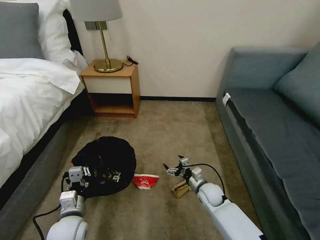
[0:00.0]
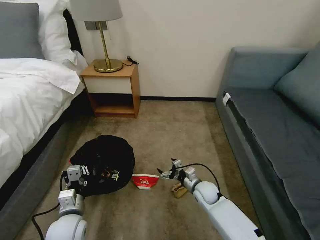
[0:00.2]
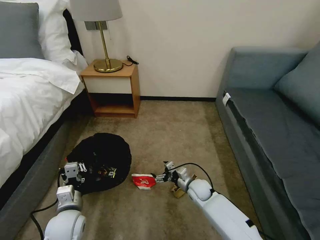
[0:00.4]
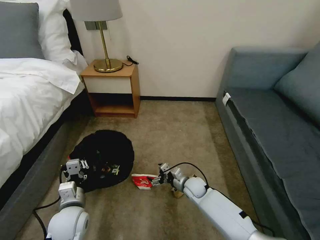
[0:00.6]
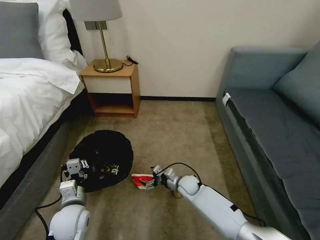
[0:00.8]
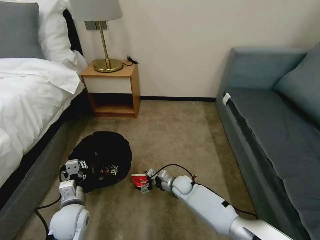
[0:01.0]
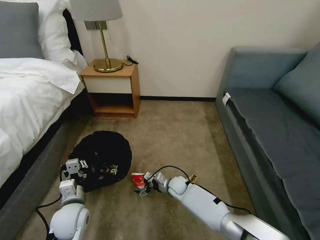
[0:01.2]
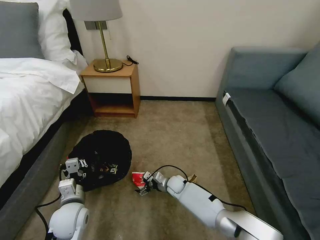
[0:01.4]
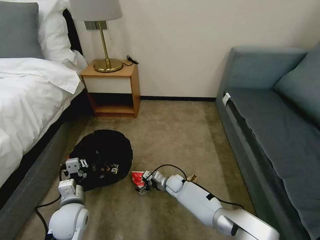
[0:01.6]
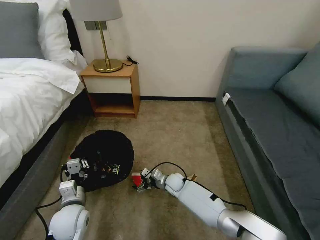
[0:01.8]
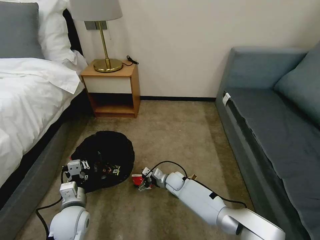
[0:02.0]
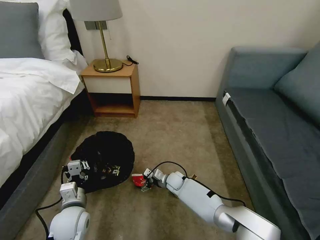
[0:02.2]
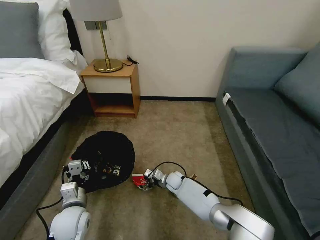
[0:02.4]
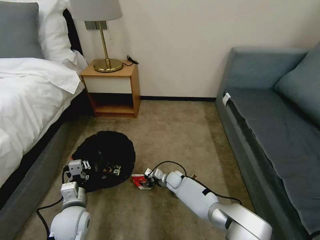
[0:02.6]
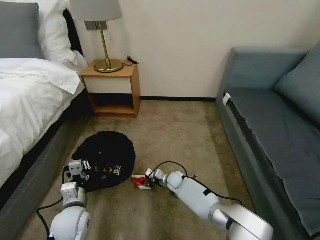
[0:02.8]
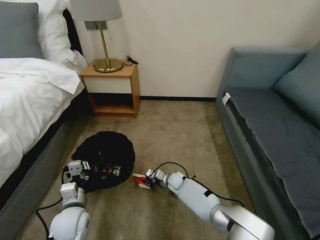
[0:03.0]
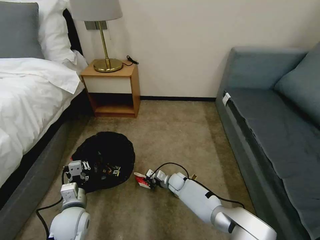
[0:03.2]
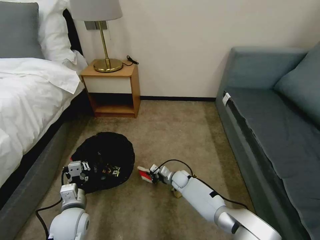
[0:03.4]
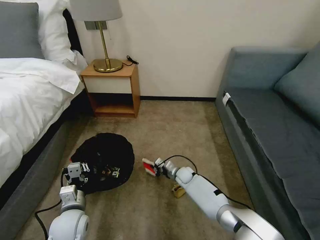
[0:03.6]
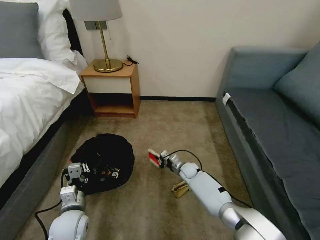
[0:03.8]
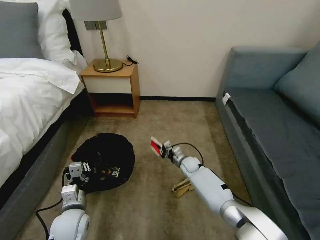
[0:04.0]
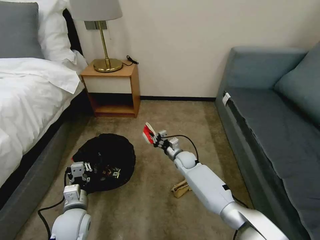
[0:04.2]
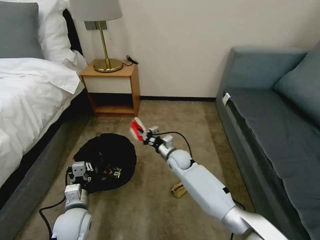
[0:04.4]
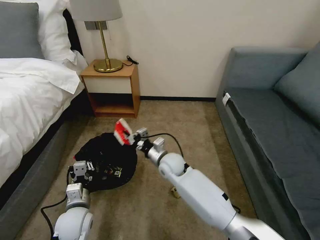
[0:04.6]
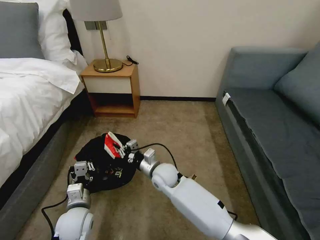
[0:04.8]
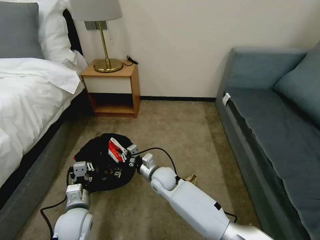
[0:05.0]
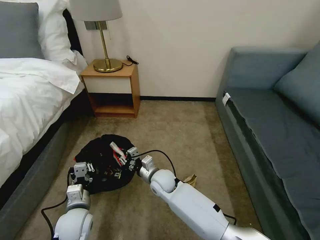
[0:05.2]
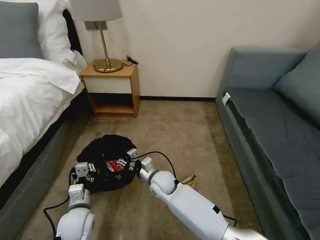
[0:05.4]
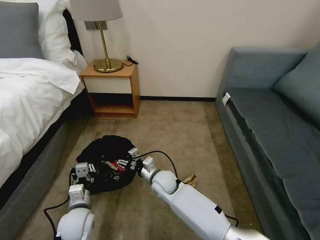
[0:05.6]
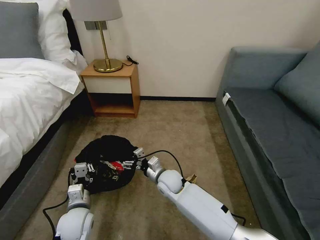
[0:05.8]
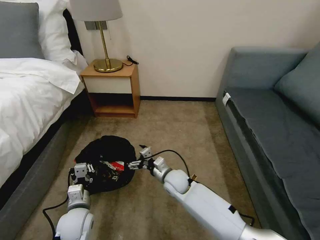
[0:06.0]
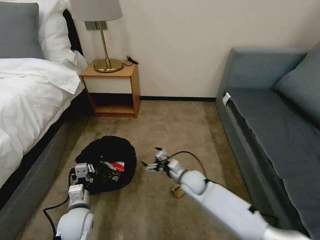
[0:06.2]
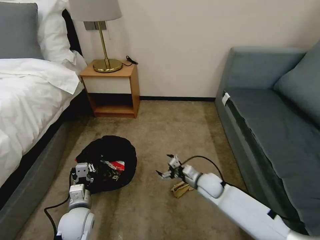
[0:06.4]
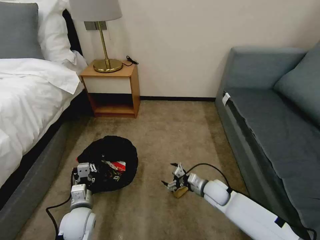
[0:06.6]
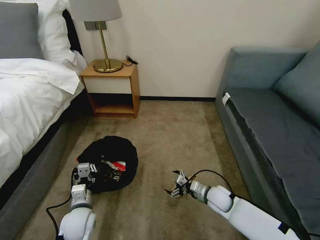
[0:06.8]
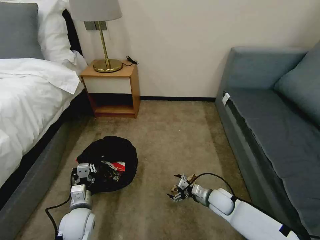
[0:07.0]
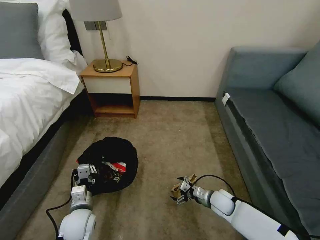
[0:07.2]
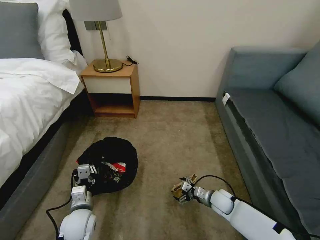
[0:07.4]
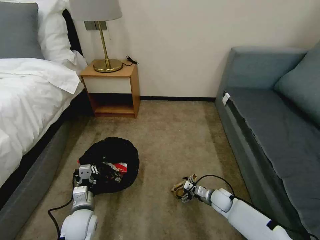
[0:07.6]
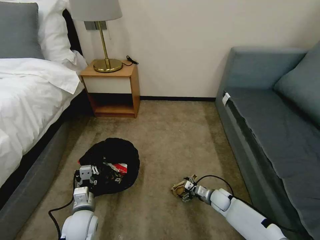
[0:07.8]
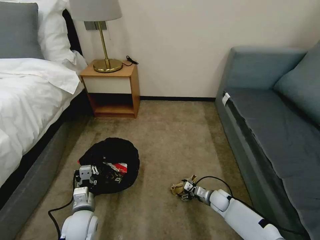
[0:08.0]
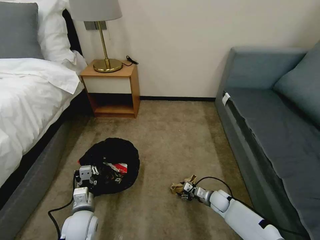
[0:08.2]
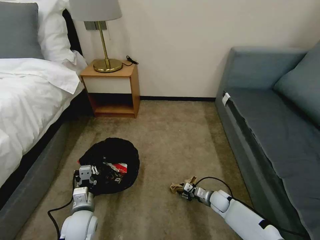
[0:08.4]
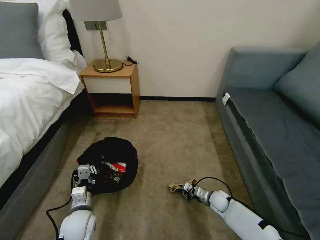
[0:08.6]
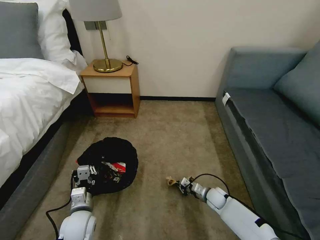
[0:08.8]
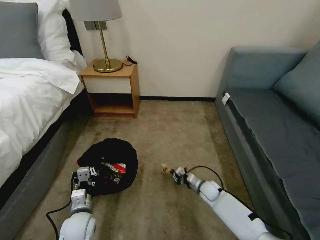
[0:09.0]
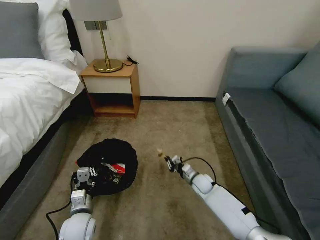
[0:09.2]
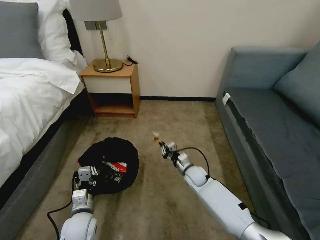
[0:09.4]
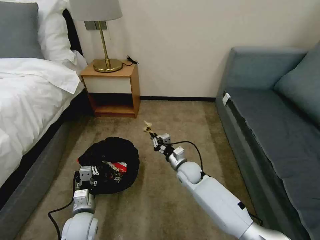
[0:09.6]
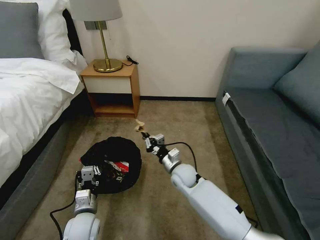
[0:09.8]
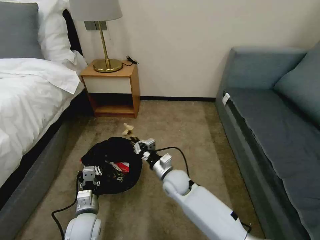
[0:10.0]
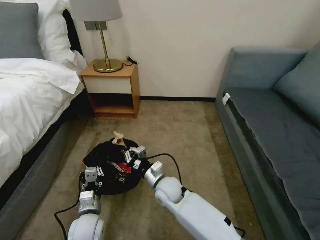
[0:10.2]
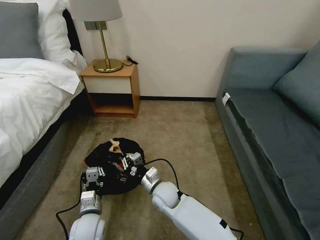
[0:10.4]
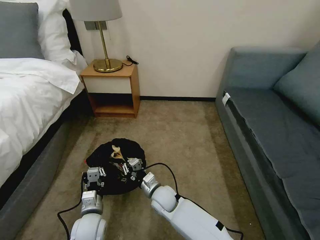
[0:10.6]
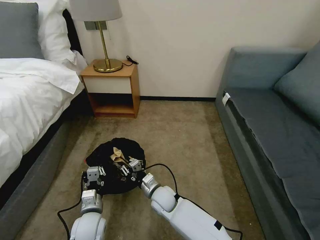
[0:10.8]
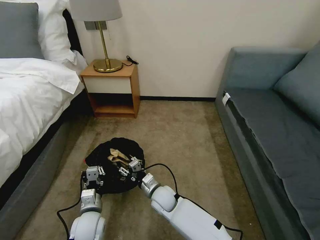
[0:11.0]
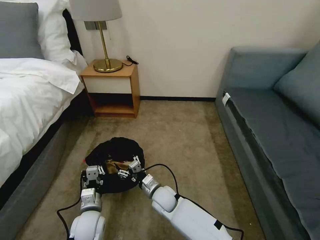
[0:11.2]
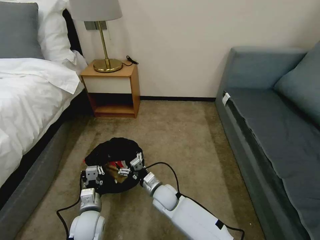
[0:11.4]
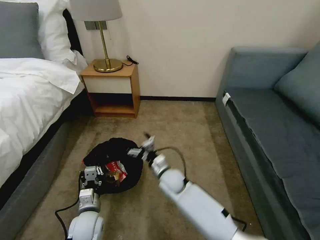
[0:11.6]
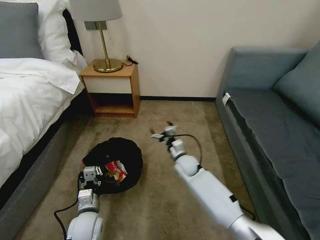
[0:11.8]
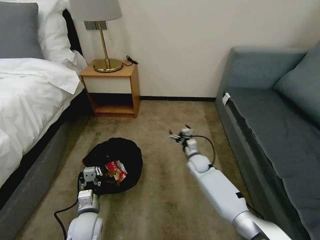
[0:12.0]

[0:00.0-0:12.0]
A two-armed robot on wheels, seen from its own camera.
Task of the whole recording: Pick up the trash bin, then pick up the garbage on the floor and place it into the trash bin.
0:00.0 to 0:01.6: The right gripper is displaced to the left, forward and downward by about 15 cm.
0:01.6 to 0:03.0: The right gripper closes up.
0:03.0 to 0:04.4: The right gripper heads upward, covering some 15 cm.
0:04.4 to 0:06.0: The right gripper is displaced backward by some 10 cm, and opens up.
0:06.0 to 0:07.6: The right gripper moves to the right and downward, some 25 cm.
0:07.6 to 0:09.0: The right gripper changes place by some 5 cm, and closes its fingers.
0:09.0 to 0:10.4: The right gripper heads to the left and upward, covering about 25 cm.
0:10.4 to 0:12.0: The right gripper is displaced to the right and forward by about 20 cm, and opens.

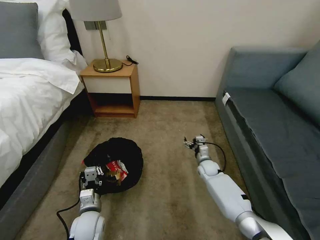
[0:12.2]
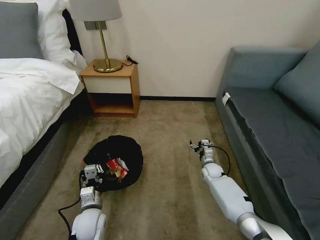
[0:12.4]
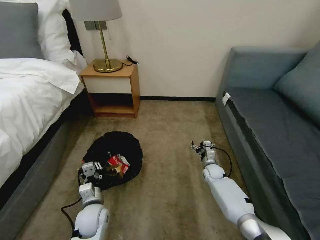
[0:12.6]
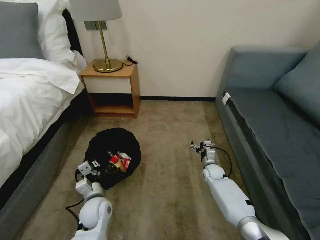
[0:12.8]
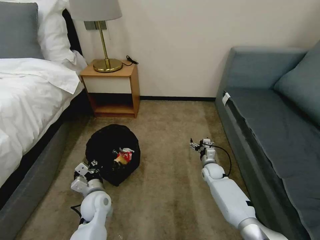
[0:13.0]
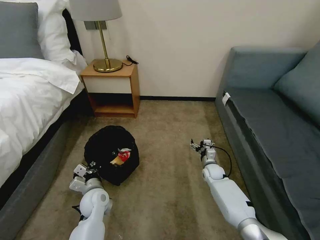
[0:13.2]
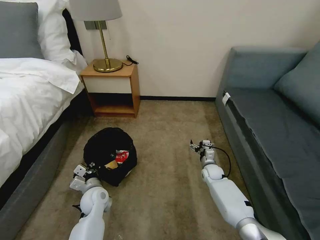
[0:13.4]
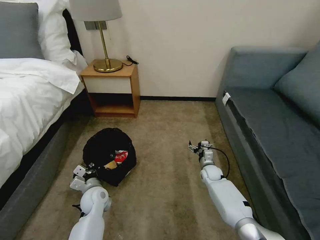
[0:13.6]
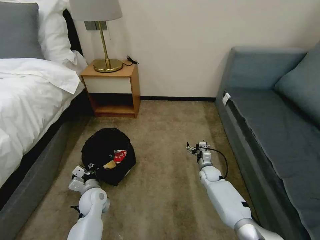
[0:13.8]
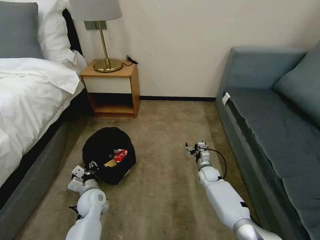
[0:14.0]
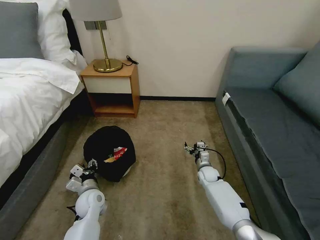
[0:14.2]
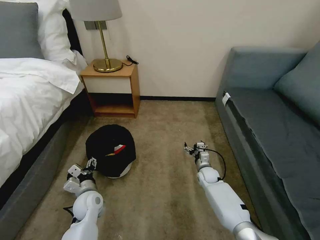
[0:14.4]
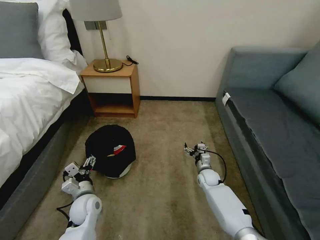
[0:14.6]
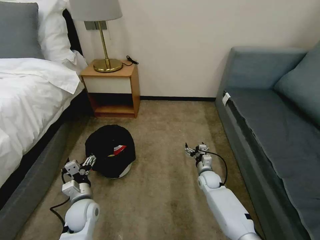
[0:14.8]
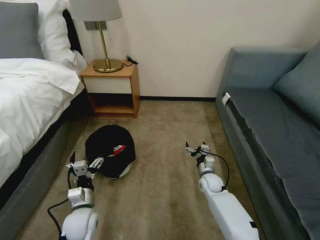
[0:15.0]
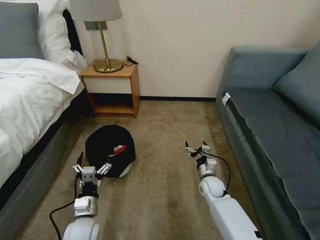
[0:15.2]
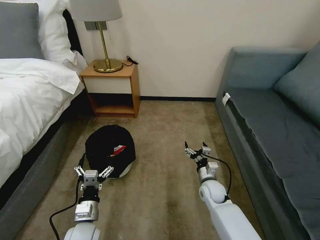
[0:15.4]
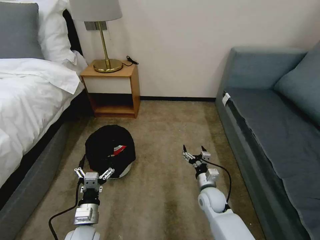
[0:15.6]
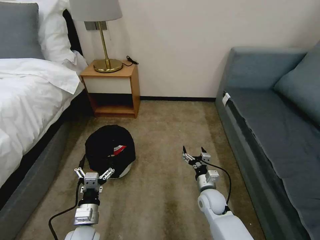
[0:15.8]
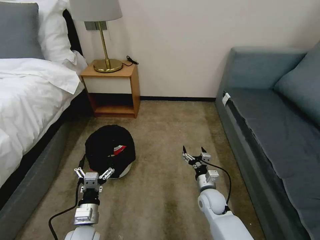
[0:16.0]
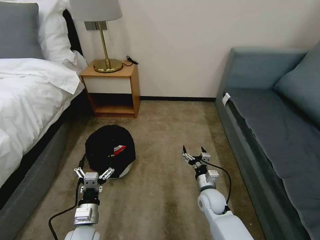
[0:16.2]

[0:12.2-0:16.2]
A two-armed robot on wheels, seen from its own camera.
Task of the whole recording: Pick up the trash bin, then pick up the garbage on the floor and place it into the trash bin.
0:12.2 to 0:13.6: The left gripper goes about 10 cm forward.
0:13.6 to 0:14.8: The left gripper travels backward by approximately 5 cm, and opens its fingers.
0:14.8 to 0:16.2: Both grippers travel together backward, about 10 cm.

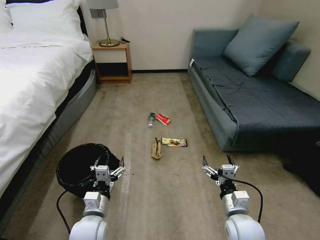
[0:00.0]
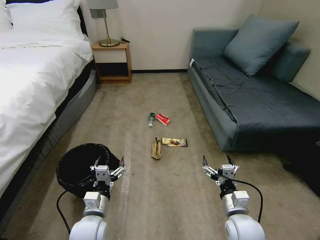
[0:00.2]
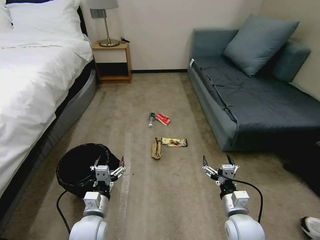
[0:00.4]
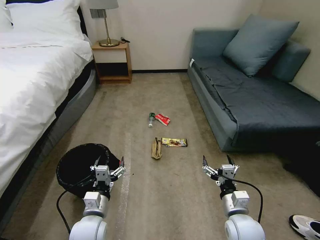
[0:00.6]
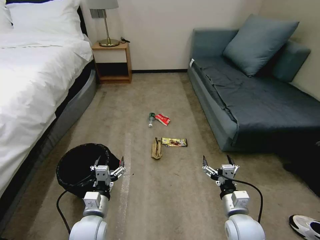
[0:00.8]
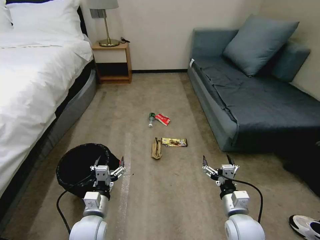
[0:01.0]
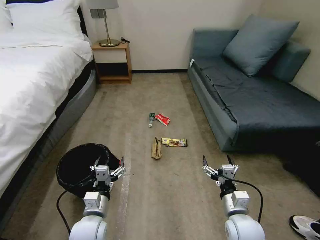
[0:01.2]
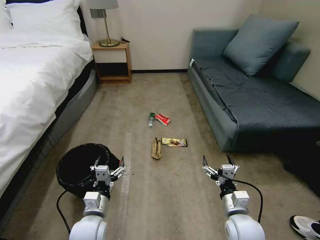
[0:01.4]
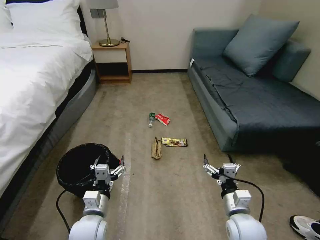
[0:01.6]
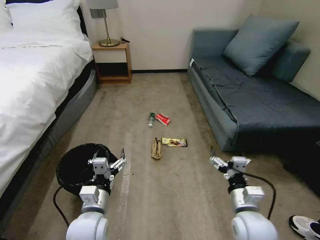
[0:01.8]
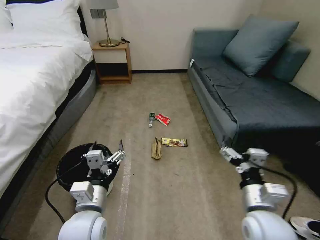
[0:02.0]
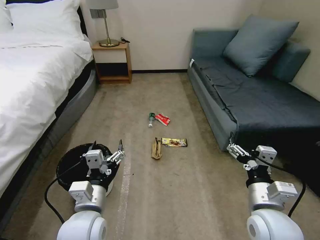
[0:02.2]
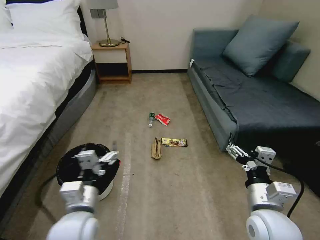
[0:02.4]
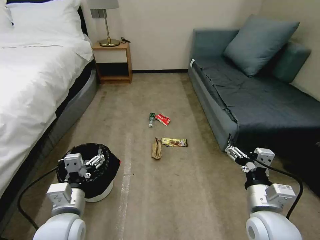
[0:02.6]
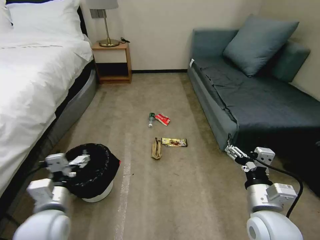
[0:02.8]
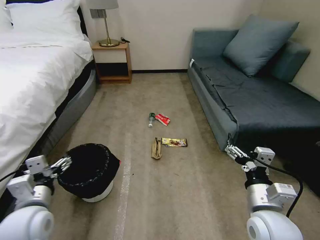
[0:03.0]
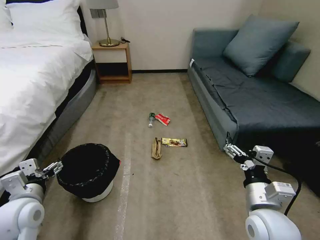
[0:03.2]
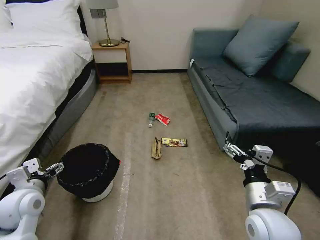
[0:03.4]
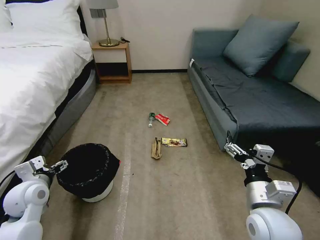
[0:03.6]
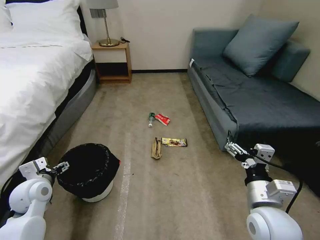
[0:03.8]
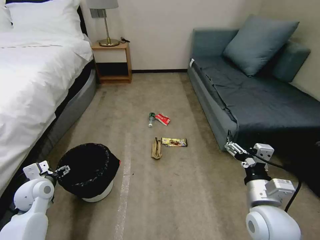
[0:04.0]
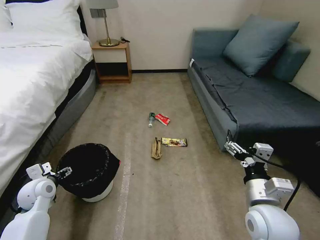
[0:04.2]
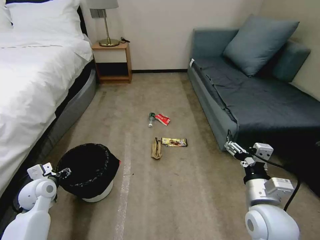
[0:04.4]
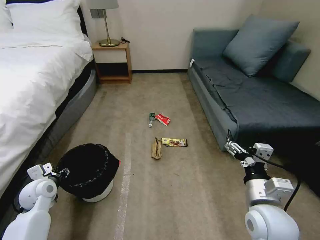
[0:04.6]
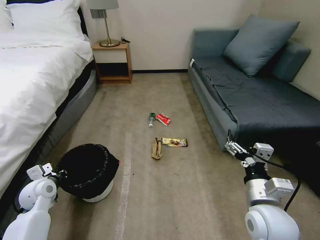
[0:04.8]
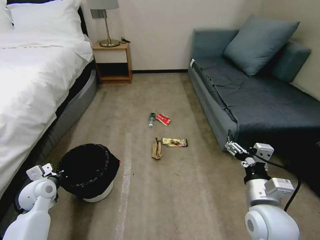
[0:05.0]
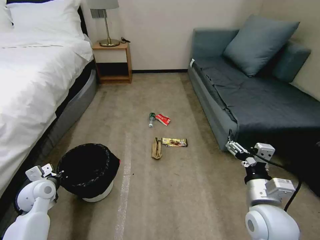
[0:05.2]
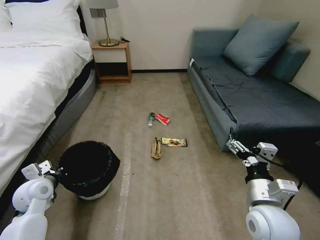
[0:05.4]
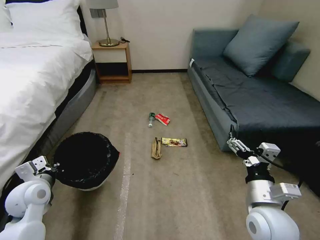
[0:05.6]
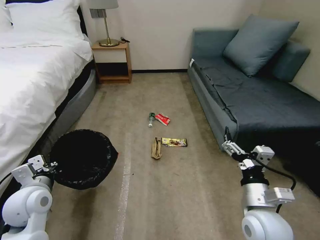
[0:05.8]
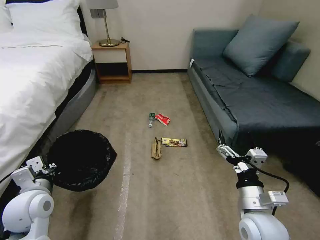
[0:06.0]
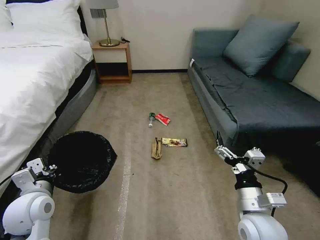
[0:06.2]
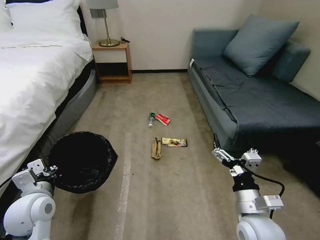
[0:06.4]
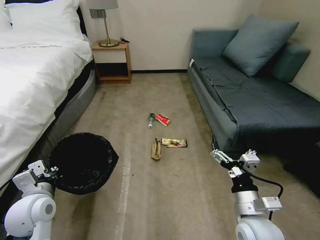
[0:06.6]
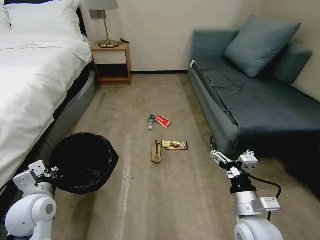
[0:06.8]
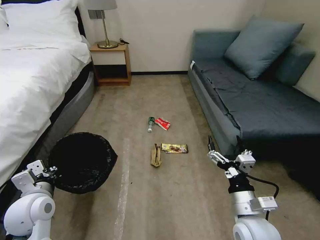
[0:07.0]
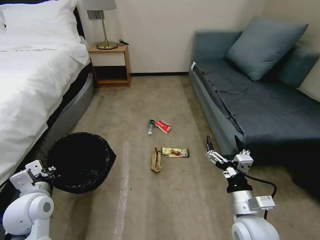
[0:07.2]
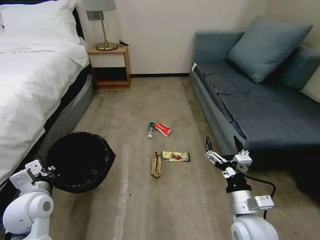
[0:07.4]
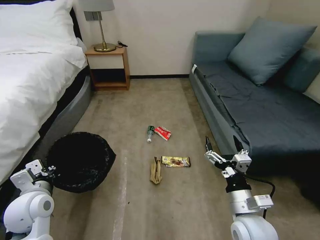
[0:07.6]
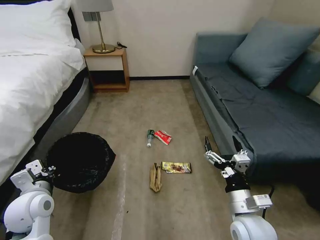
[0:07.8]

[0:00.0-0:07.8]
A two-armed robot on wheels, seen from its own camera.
Task of the whole recording: Pick up the trash bin, then pick up the garbage on the floor and place it into the trash bin.
0:01.6 to 0:03.2: The left gripper shifts approximately 20 cm to the left and upward, while the right gripper moves upward, approximately 10 cm.
0:03.2 to 0:04.6: The left gripper moves forward, downward and to the left, some 15 cm, and closes its fingers.
0:04.6 to 0:06.2: The left gripper goes about 15 cm upward, backward and to the right, and closes its fingers.
